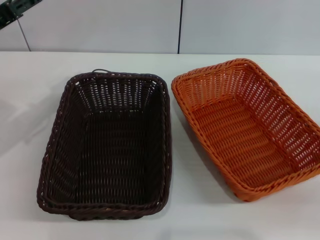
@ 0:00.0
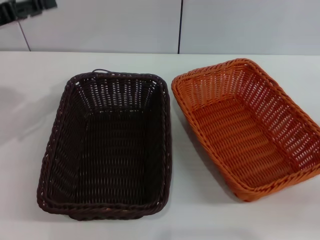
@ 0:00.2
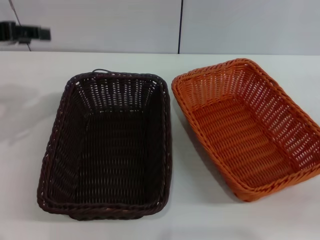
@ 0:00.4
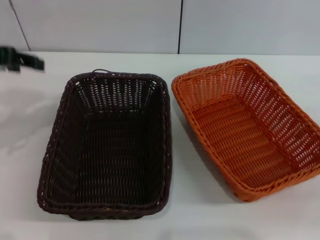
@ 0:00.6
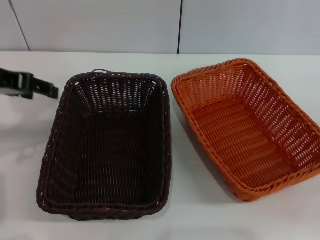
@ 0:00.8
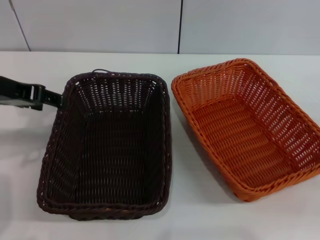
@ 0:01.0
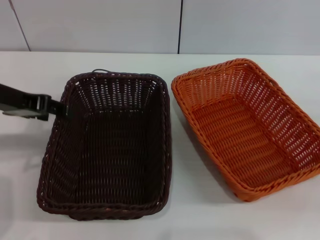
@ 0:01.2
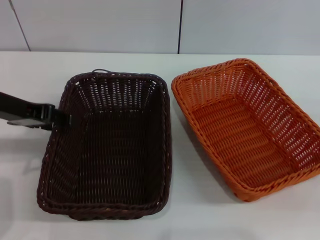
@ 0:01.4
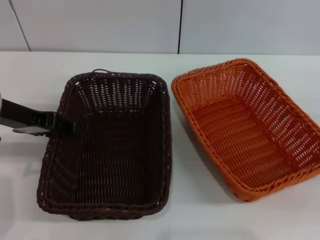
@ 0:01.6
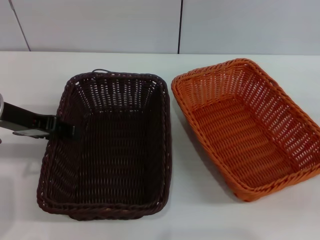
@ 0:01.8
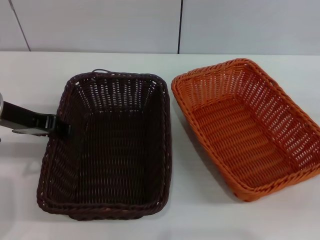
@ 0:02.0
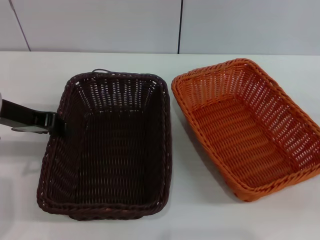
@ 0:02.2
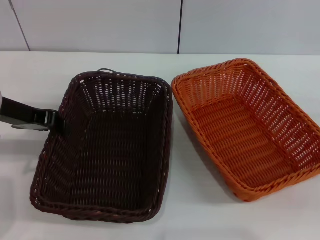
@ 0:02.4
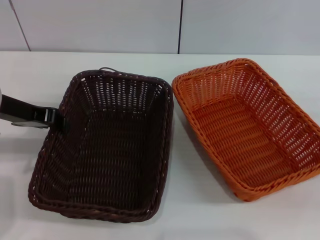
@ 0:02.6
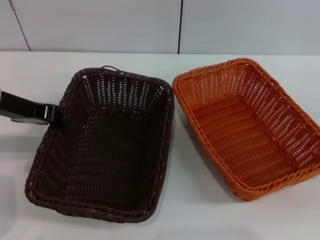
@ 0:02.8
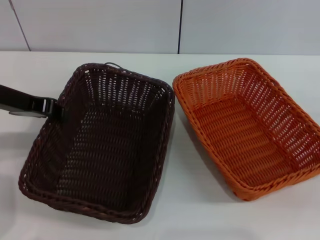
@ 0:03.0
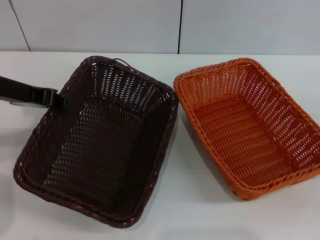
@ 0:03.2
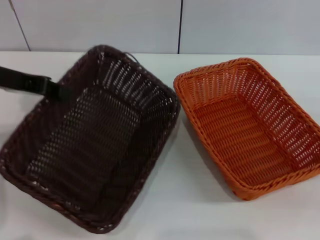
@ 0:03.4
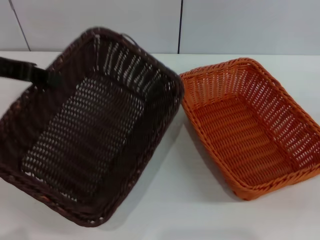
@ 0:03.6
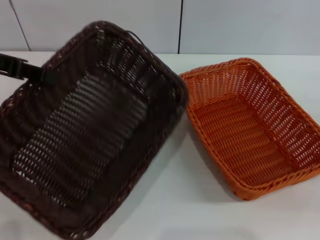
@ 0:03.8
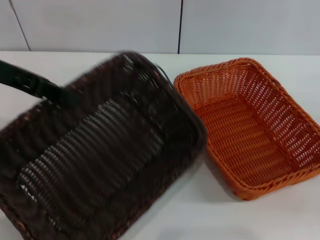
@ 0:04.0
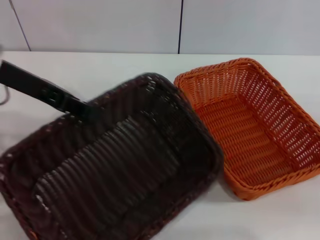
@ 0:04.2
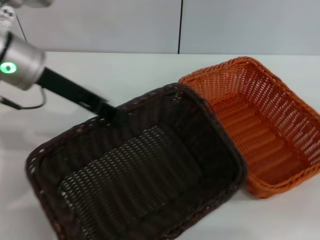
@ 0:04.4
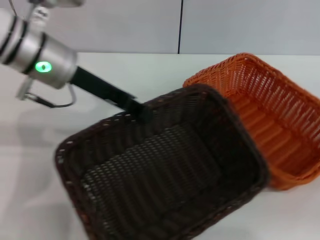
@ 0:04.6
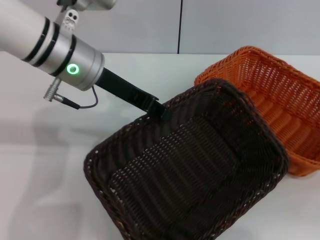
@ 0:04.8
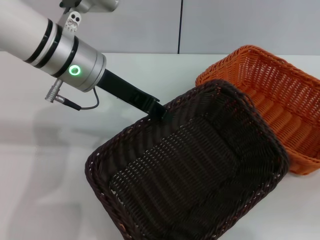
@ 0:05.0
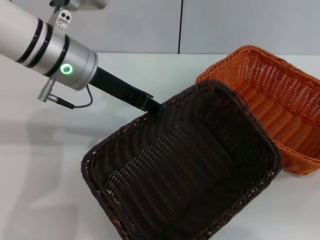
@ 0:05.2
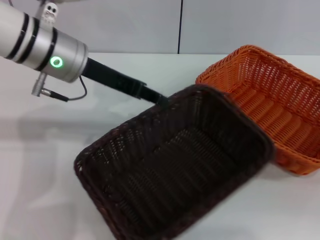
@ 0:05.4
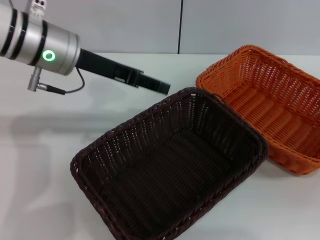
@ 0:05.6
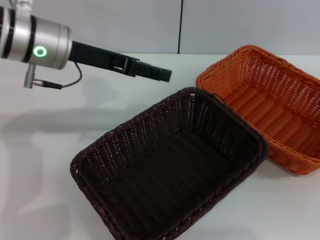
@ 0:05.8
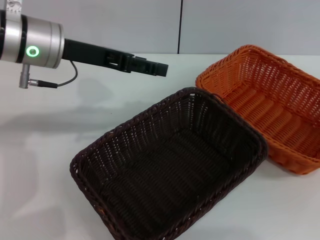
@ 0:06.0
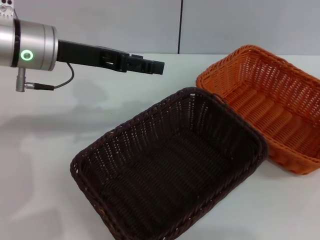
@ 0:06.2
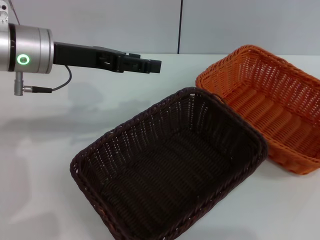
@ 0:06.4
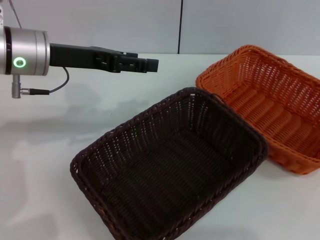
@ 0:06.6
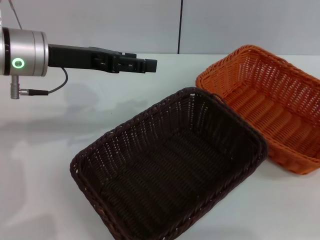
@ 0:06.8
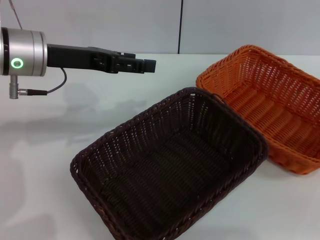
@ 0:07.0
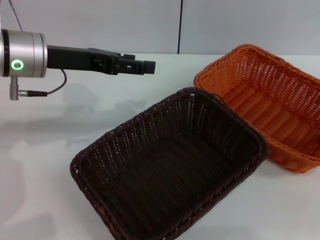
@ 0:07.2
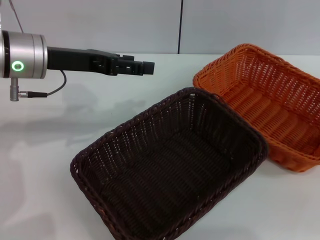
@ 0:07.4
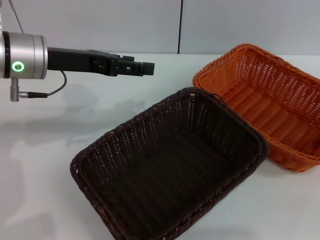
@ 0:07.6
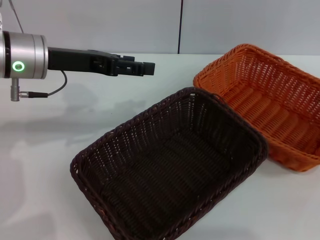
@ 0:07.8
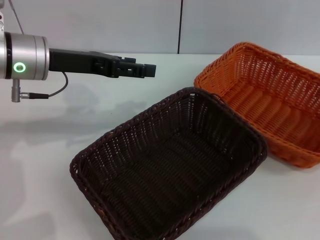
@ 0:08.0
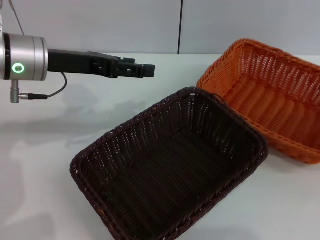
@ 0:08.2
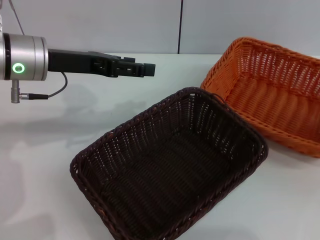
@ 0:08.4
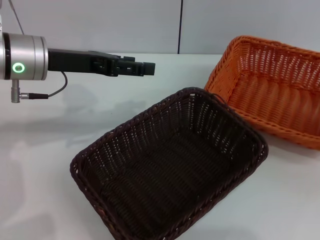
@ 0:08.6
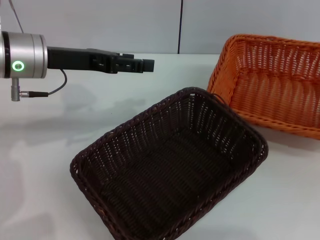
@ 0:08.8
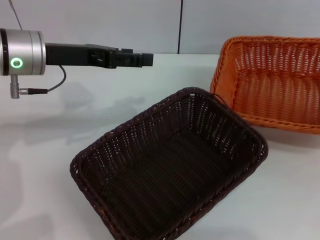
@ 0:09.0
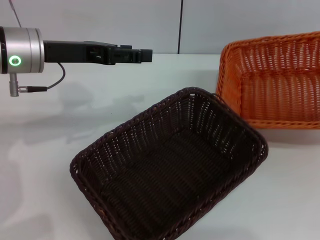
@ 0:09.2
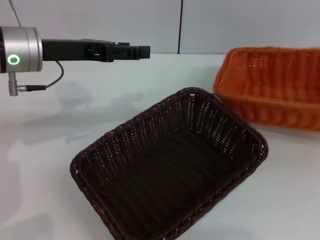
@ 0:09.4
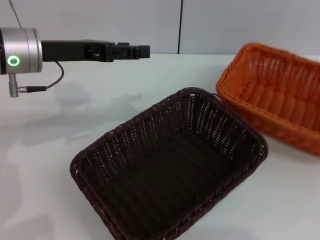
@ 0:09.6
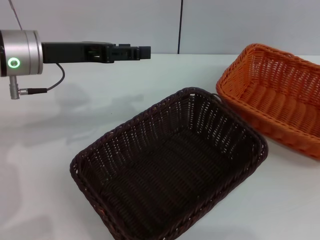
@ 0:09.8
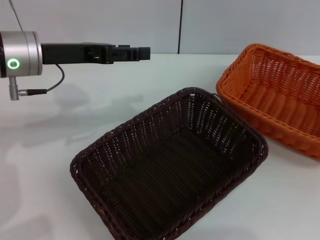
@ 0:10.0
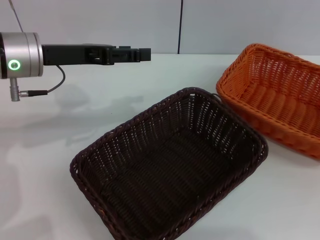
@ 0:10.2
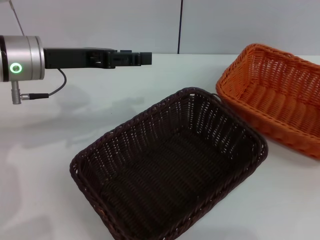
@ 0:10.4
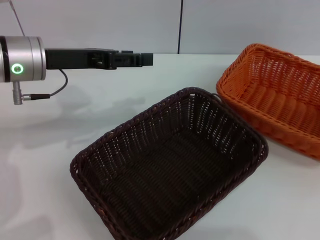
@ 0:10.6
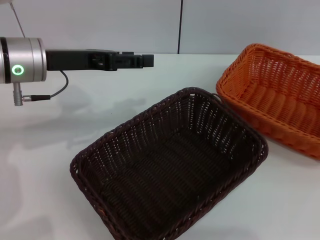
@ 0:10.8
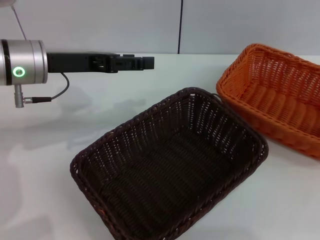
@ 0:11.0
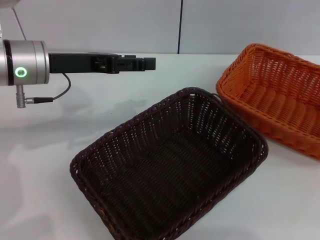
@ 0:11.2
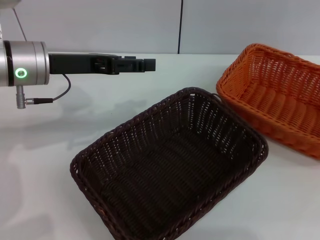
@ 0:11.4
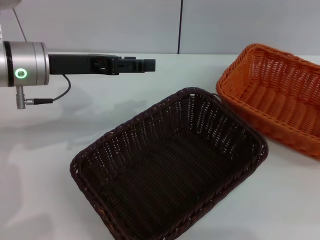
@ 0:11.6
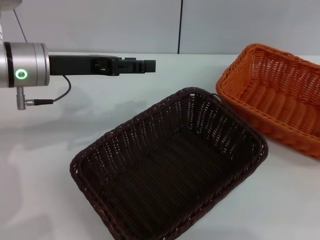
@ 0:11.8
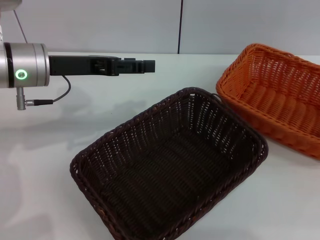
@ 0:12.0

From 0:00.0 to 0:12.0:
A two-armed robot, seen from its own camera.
Step, from 0:00.0 to 0:03.0: Pick up the dark basket with the left gripper.
Step, from 0:03.4 to 0:05.4: Place the dark basket in the center of view with the left gripper.
Step, from 0:05.8 to 0:09.2: Pick up the light basket with the right gripper.
From 0:00.0 to 0:01.6: The left gripper travels upward and back again, some 5 cm each way.
From 0:01.6 to 0:03.0: The left gripper closes.
From 0:03.0 to 0:04.4: The left gripper is displaced to the right by approximately 5 cm.
From 0:04.4 to 0:06.0: The right gripper goes some 15 cm upward and to the right, while the left gripper opens.
From 0:06.0 to 0:07.6: The right gripper moves to the left, downward and forward, some 10 cm.
From 0:07.6 to 0:09.0: The right gripper closes.
From 0:09.0 to 0:10.4: The right gripper heads upward, covering about 5 cm.
From 0:10.4 to 0:12.0: The right gripper opens.

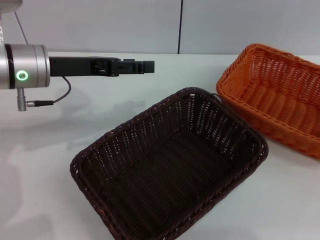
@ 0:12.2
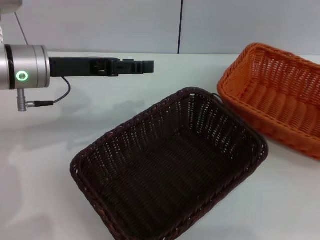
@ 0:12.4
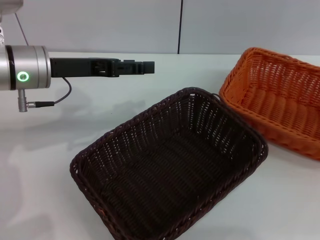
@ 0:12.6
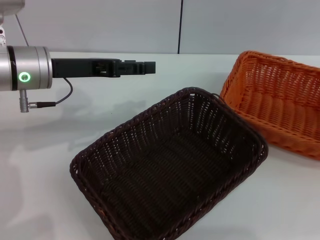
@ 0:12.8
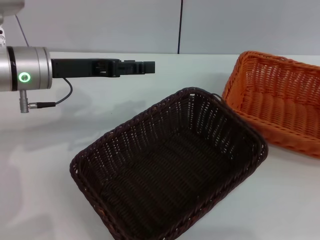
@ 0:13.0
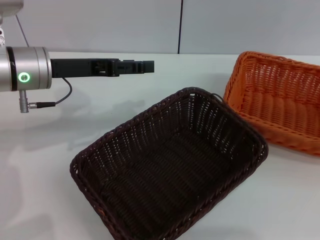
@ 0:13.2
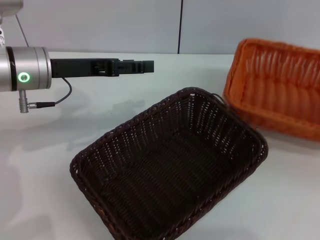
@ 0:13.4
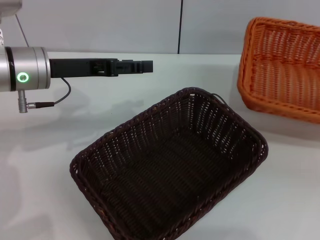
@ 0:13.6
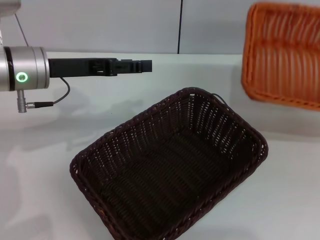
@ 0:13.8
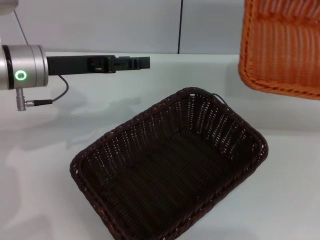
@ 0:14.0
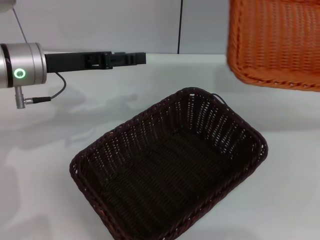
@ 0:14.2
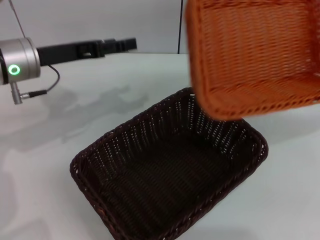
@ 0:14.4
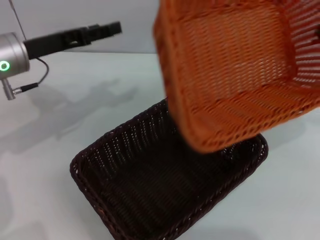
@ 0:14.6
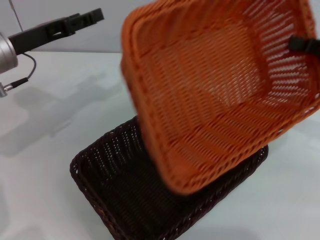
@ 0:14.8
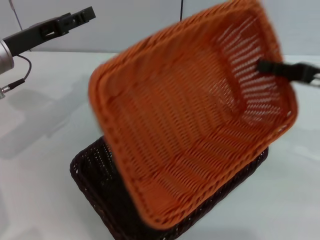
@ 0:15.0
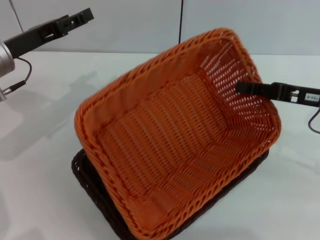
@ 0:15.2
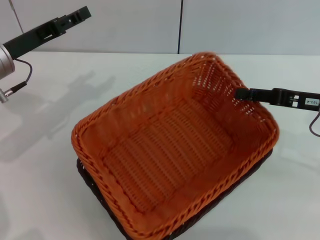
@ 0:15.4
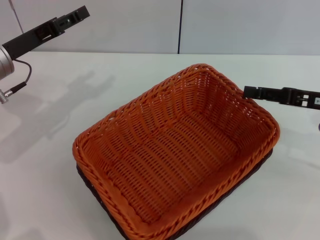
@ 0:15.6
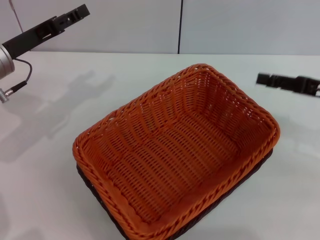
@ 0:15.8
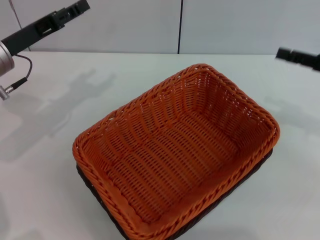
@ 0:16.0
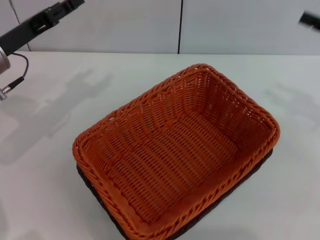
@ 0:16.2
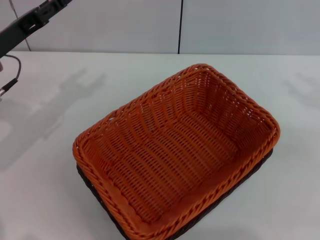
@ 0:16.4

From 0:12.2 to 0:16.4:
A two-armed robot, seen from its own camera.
Step, from 0:12.2 to 0:15.4: Place the light basket on the dark basket with the right gripper.
From 0:12.2 to 0:13.6: The right gripper closes.
From 0:13.6 to 0:15.0: The left gripper is displaced to the left by roughly 5 cm. The right gripper is displaced to the left by approximately 15 cm.
From 0:15.0 to 0:16.4: The right gripper goes some 5 cm to the right, and opens.
